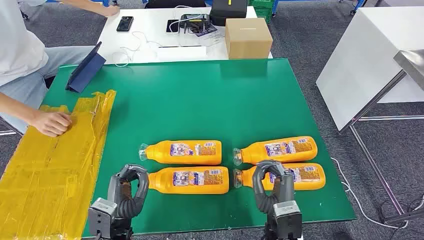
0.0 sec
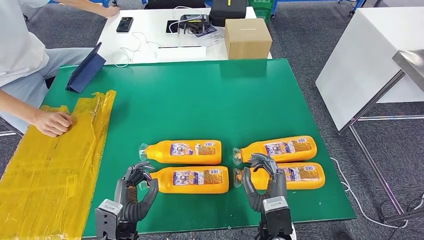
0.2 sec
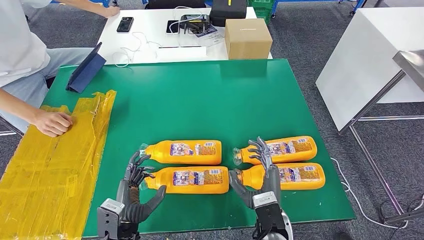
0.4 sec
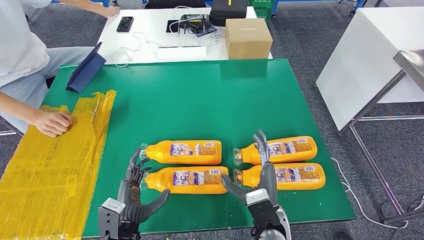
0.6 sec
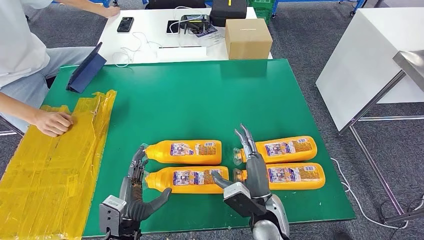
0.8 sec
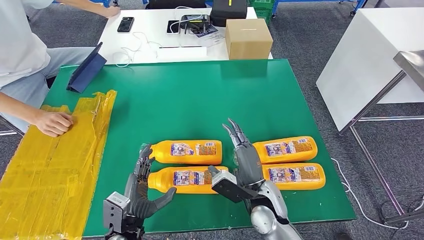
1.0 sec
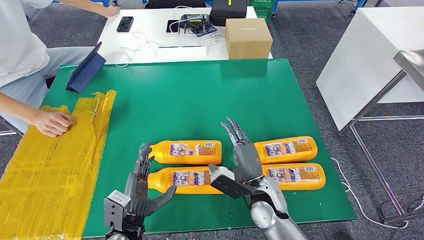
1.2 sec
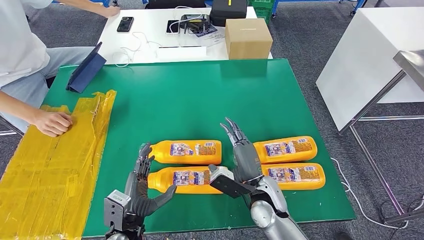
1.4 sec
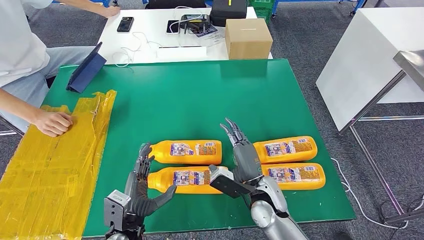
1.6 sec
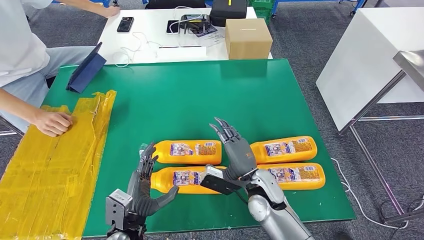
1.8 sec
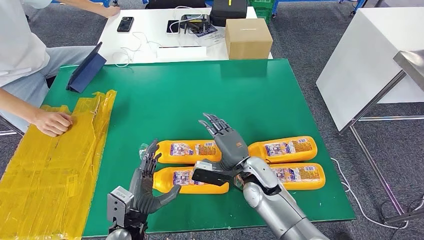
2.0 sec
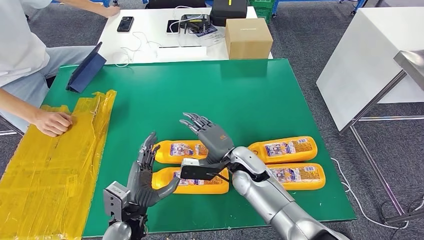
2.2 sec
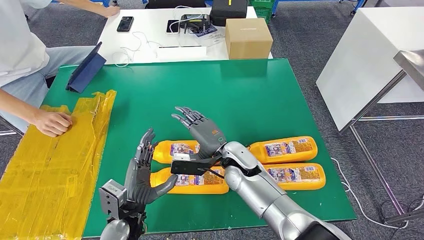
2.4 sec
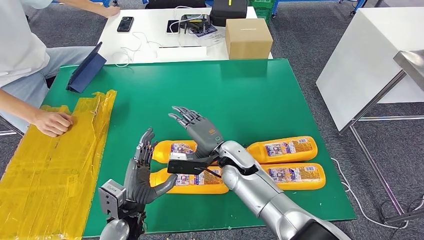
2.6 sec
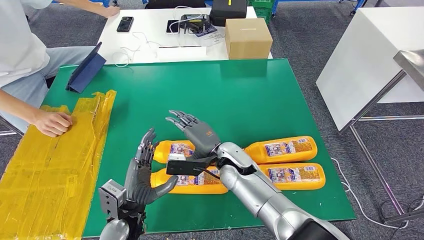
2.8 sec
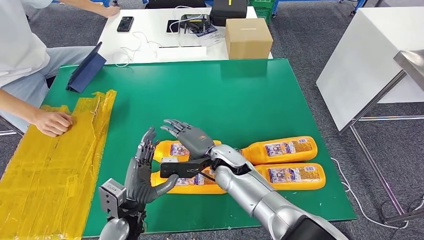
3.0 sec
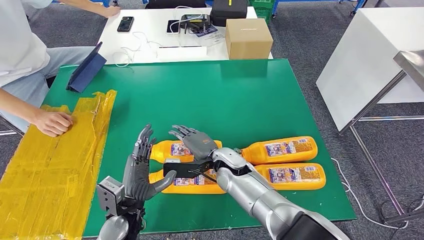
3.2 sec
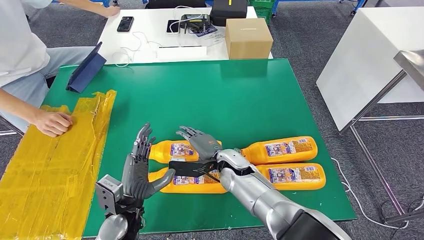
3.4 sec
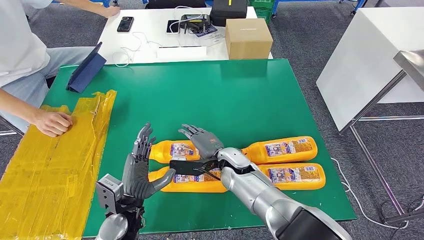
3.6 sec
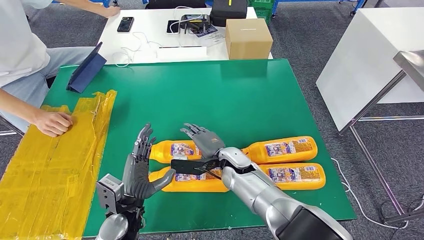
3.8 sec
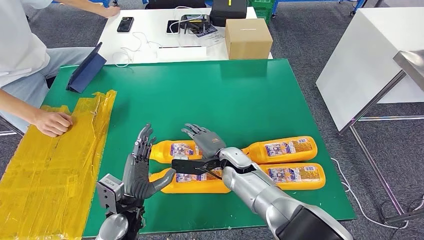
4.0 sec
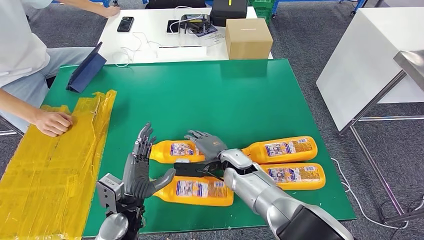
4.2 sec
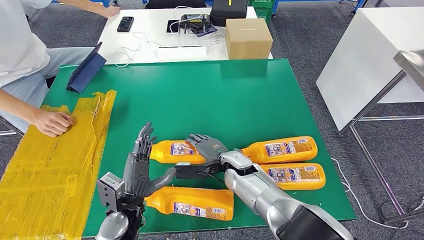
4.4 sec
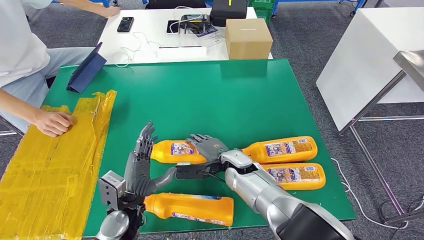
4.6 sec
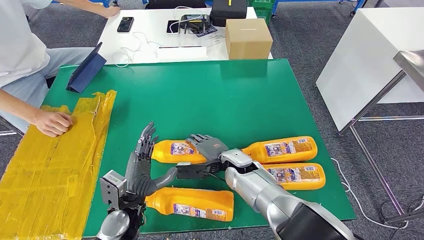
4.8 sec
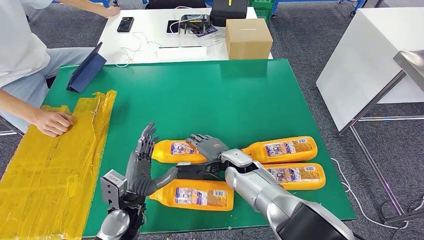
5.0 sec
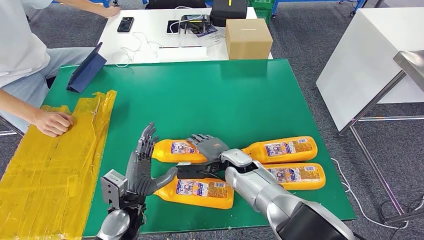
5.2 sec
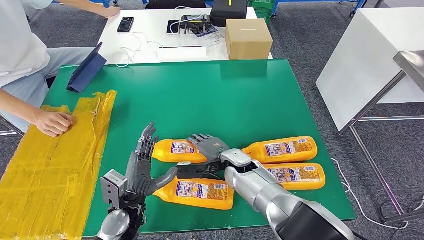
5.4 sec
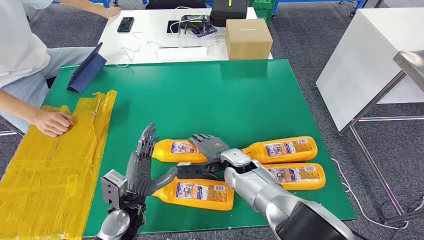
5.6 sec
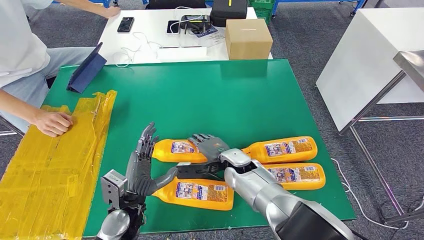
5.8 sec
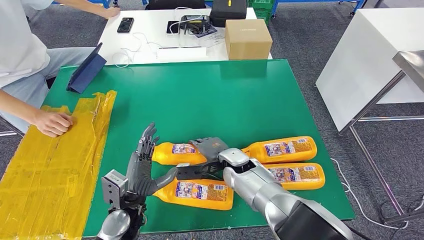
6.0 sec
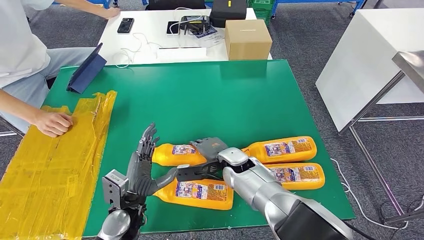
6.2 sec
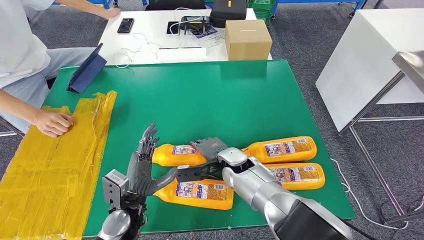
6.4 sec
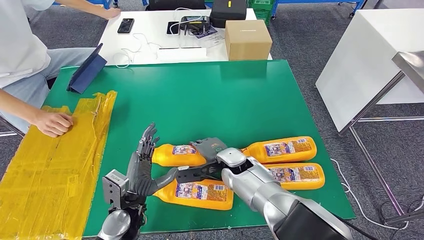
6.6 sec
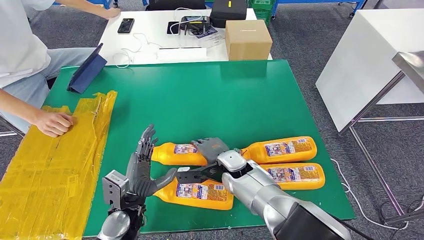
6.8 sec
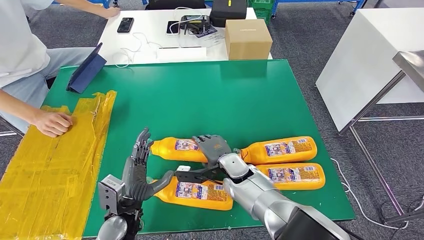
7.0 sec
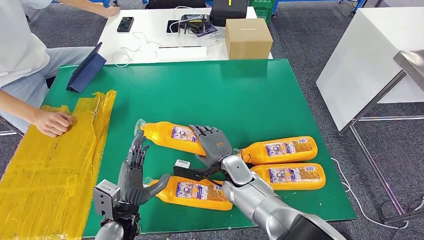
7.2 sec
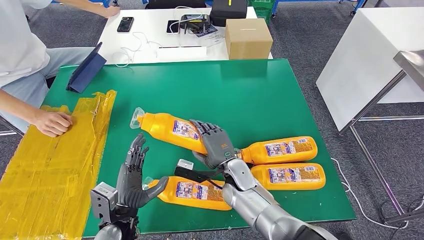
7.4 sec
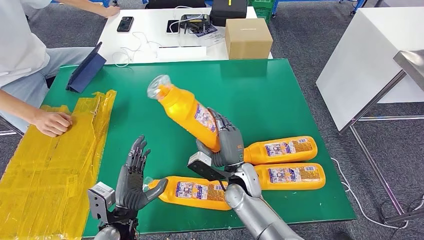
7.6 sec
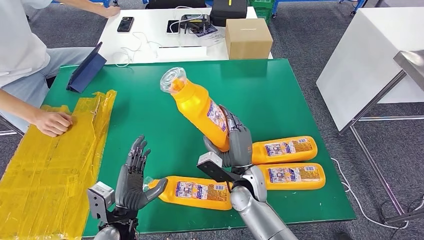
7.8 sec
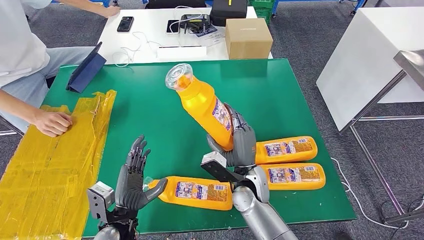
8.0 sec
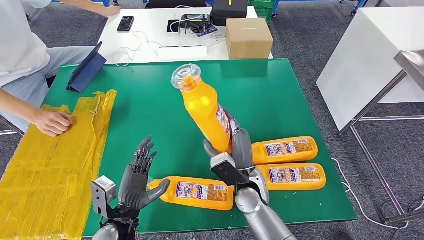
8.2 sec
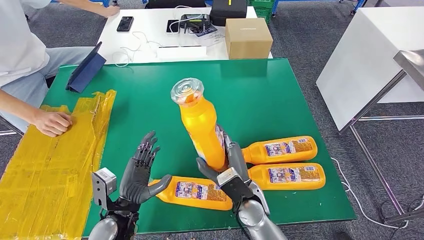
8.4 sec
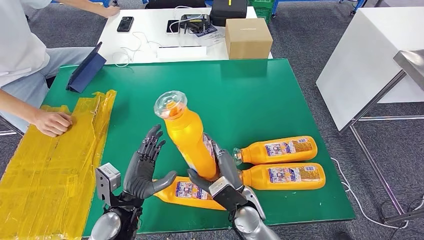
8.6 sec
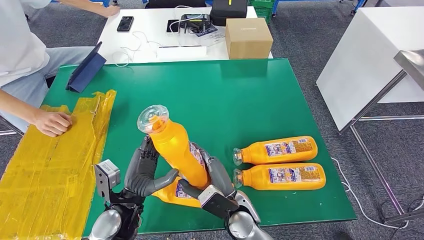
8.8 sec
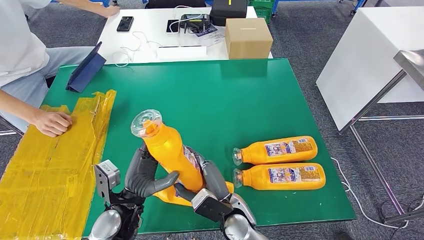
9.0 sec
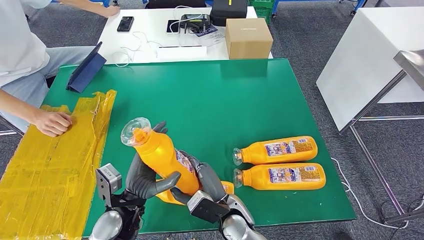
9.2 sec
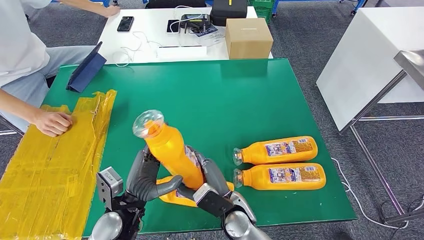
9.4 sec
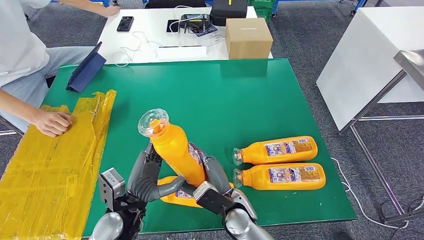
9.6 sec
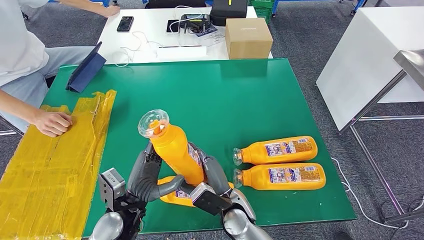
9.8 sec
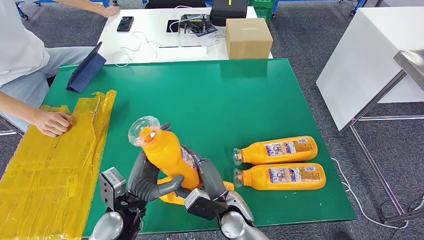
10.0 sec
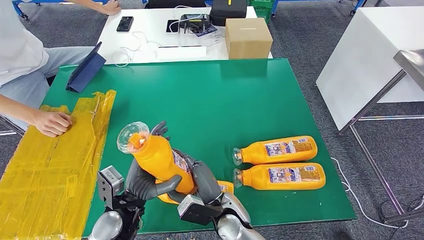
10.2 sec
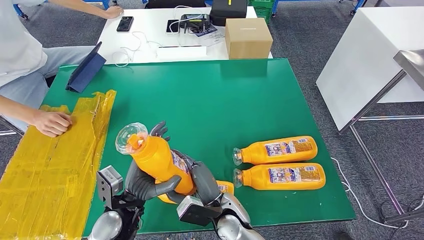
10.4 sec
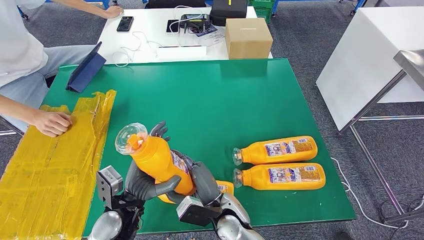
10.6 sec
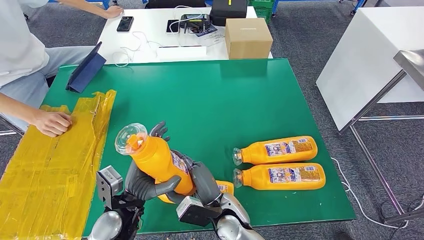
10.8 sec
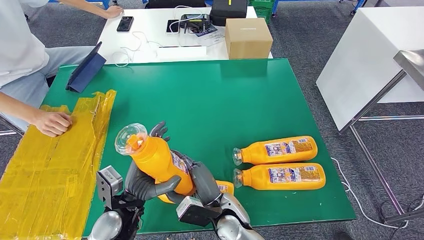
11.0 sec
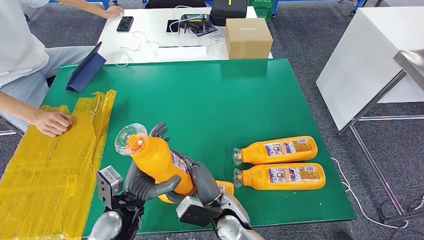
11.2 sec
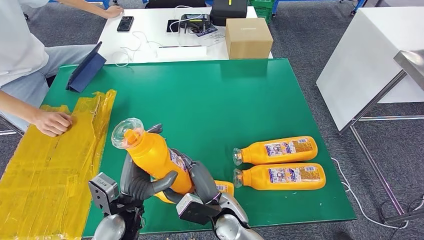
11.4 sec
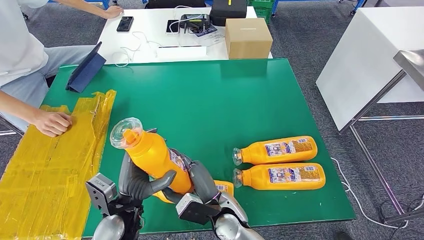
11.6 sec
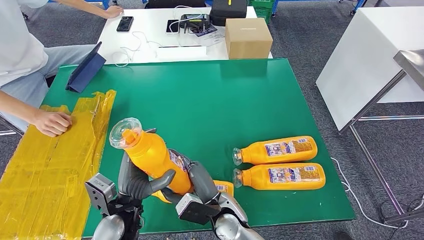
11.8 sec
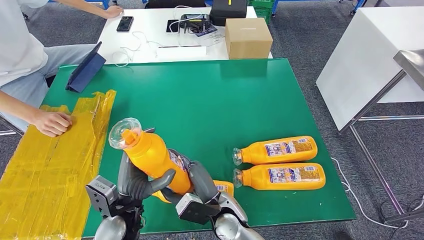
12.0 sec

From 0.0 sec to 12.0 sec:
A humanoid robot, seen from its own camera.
Step, from 0.0 sec to 7.4 sec: Take the fast-moving consumer goods bottle from the table.
From 1.6 sec to 3.0 sec: The right hand is displaced to the left and forward by some 10 cm.
From 3.0 sec to 4.4 sec: The right hand shifts by roughly 5 cm.
From 4.4 sec to 6.0 sec: The hands make only small movements.
From 6.0 sec to 7.6 sec: The right hand is displaced backward by roughly 5 cm.
From 7.6 sec to 9.0 sec: The right hand heads backward, covering some 10 cm, while the left hand moves about 5 cm.
From 9.0 sec to 12.0 sec: The hands make only small movements.

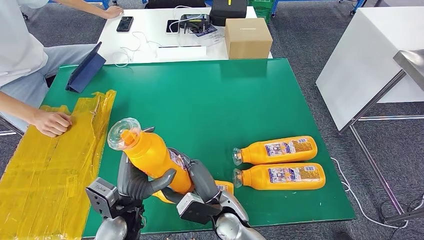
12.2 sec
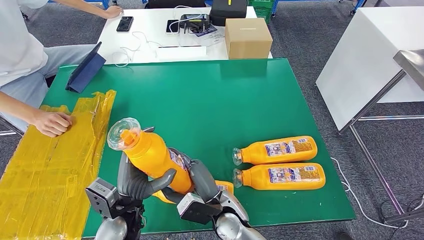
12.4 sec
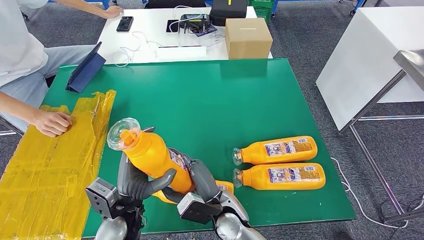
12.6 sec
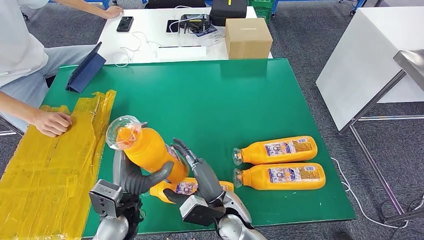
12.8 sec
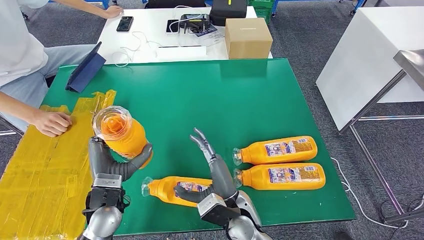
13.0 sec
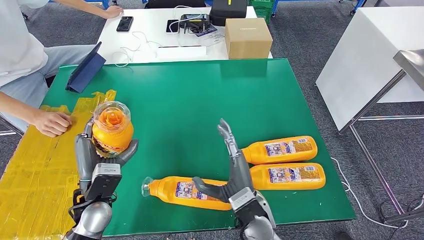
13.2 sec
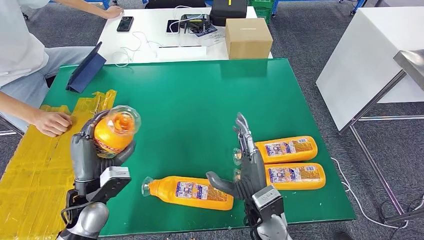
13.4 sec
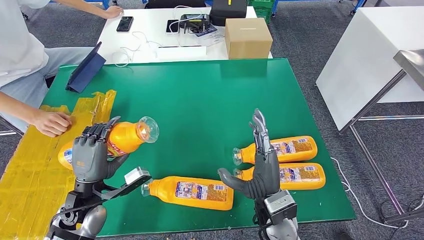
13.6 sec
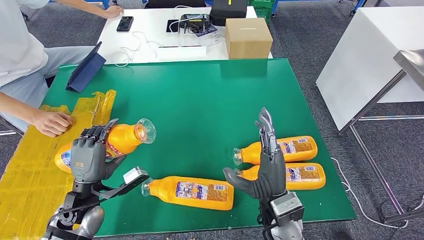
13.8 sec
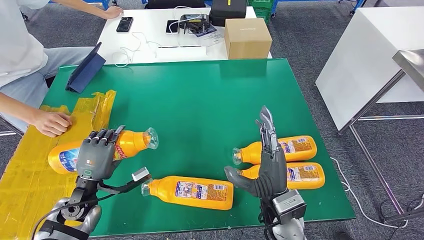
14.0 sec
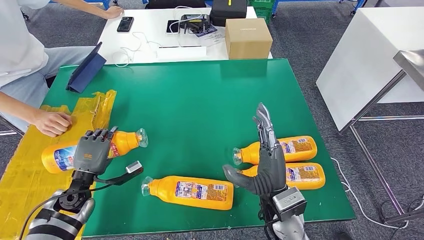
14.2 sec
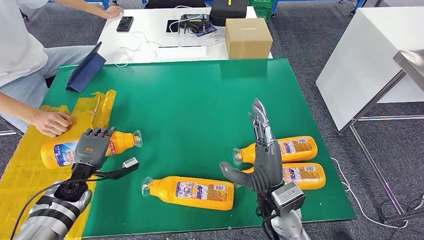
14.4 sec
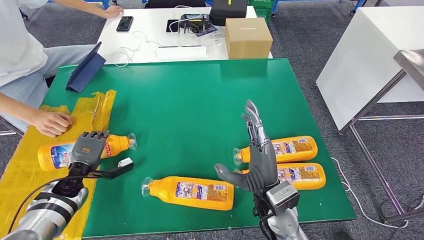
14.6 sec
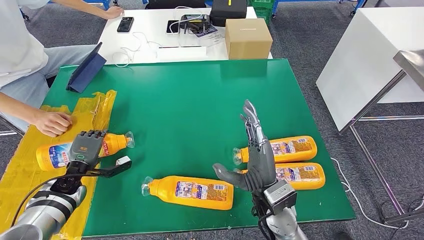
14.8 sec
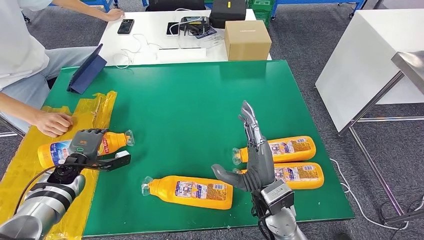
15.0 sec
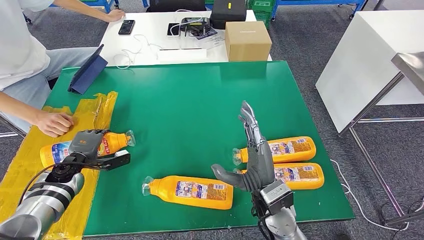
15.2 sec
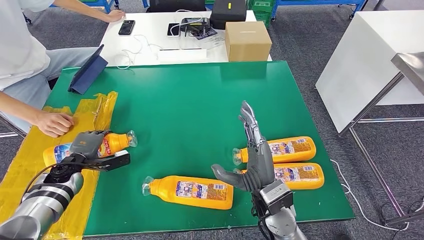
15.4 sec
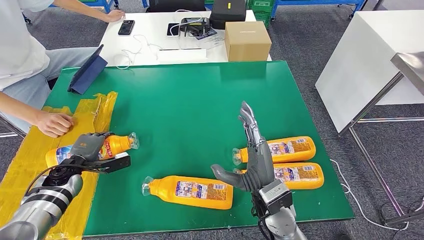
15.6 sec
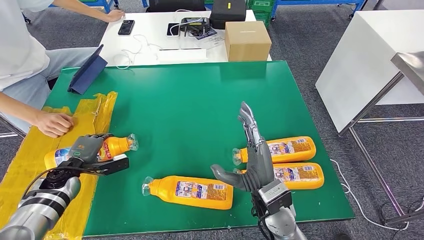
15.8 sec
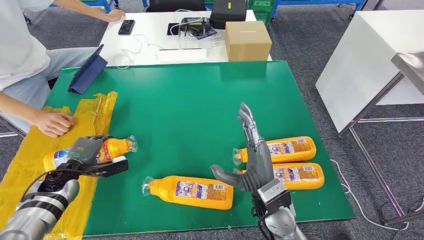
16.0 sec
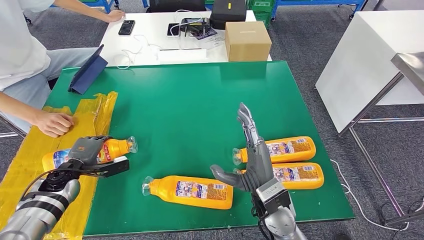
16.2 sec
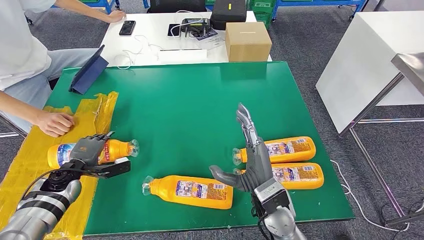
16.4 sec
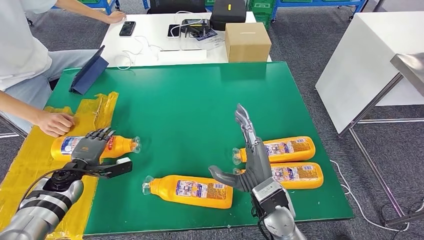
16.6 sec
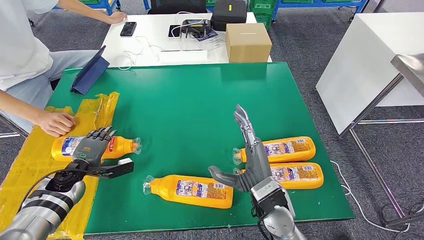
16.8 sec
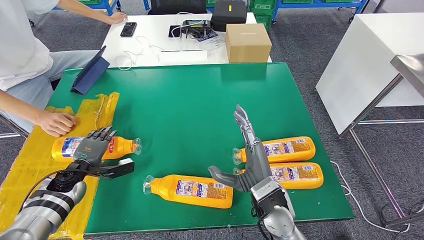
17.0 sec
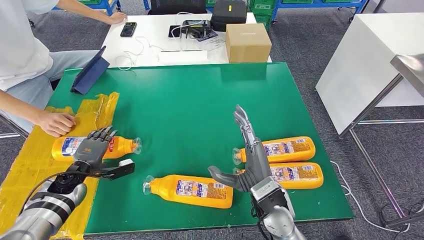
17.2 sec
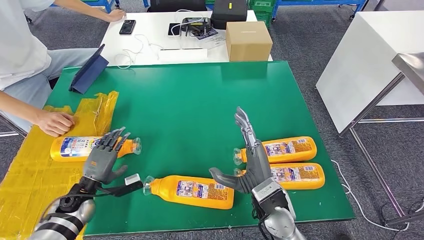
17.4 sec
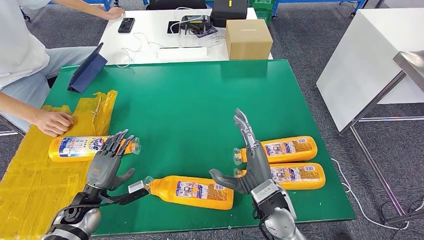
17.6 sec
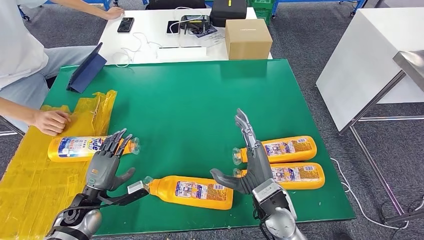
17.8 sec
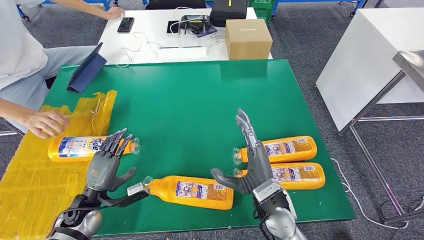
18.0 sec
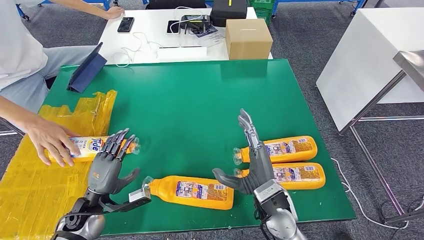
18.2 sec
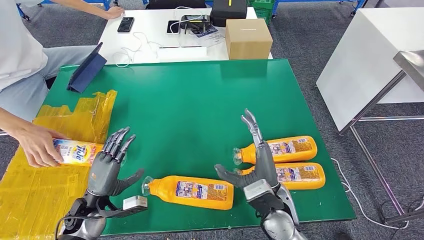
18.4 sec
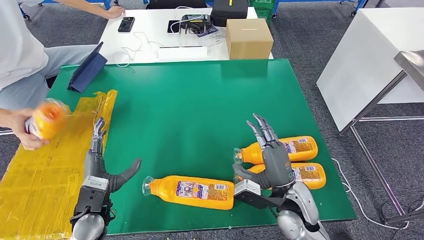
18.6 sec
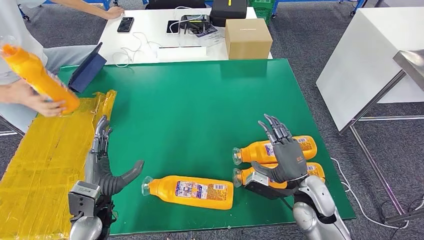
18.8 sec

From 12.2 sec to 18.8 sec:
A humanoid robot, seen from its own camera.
Step, from 12.2 sec to 17.8 sec: Flip the fast-moving consumer goods bottle to the front side.
From 12.2 sec to 13.8 sec: The left hand travels to the left by approximately 10 cm; the right hand shifts about 15 cm to the right and upward.
From 15.4 sec to 17.2 sec: The hands stay close to where they were, moving slightly.
